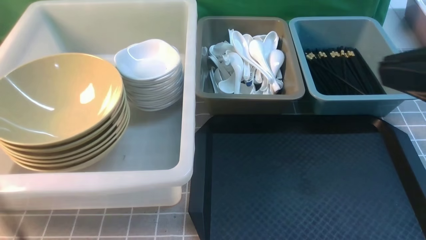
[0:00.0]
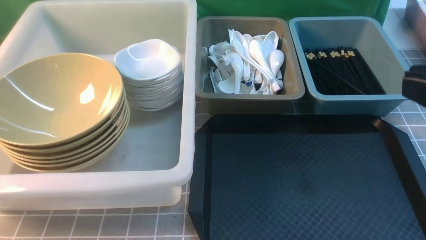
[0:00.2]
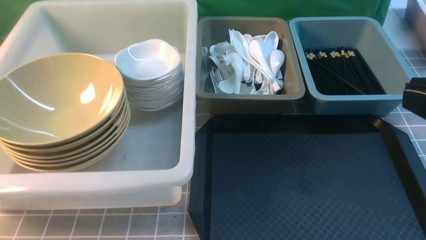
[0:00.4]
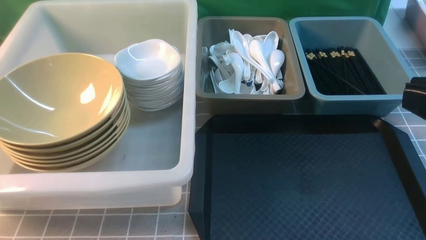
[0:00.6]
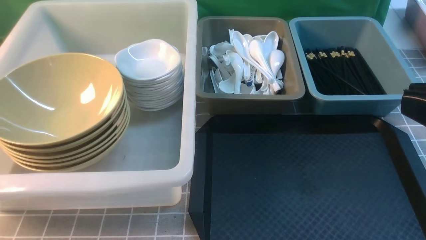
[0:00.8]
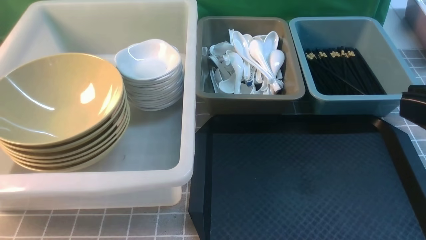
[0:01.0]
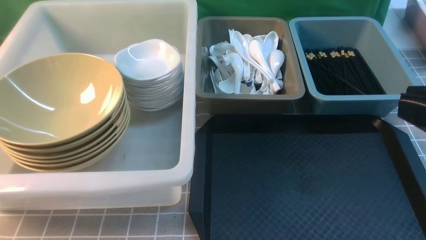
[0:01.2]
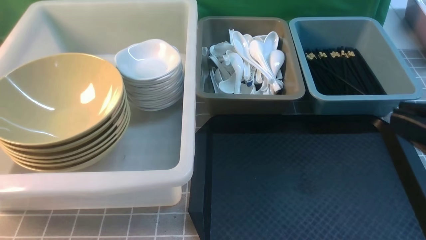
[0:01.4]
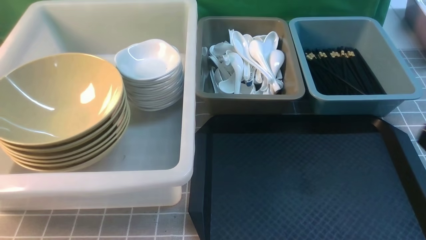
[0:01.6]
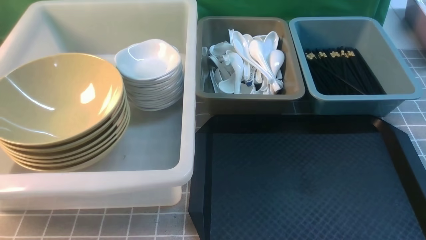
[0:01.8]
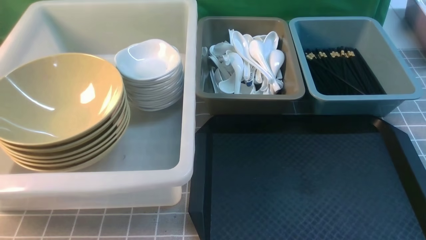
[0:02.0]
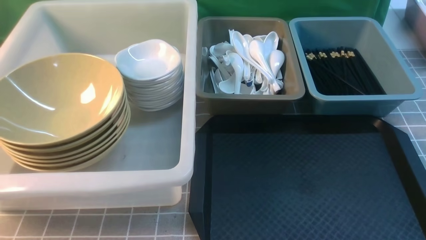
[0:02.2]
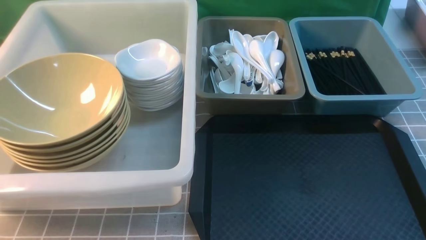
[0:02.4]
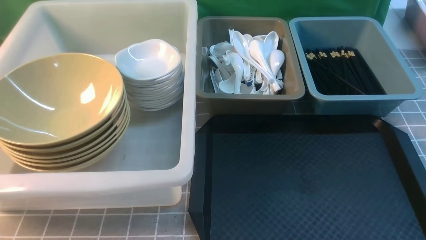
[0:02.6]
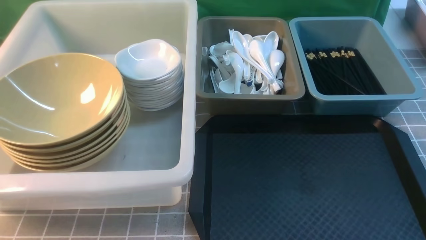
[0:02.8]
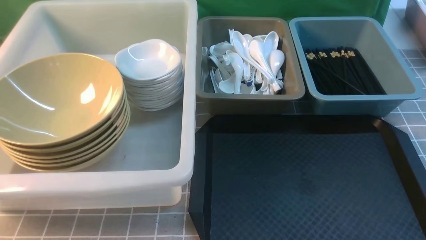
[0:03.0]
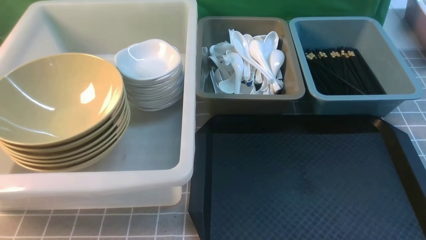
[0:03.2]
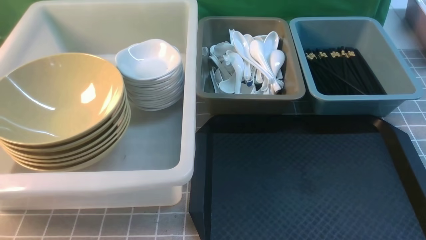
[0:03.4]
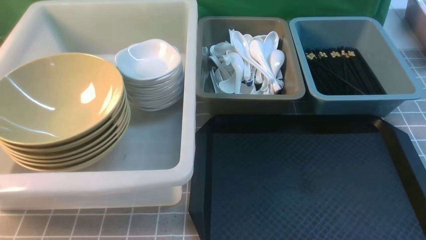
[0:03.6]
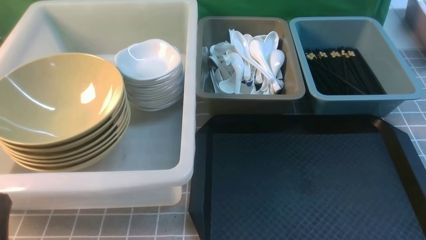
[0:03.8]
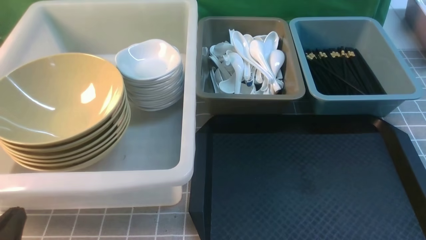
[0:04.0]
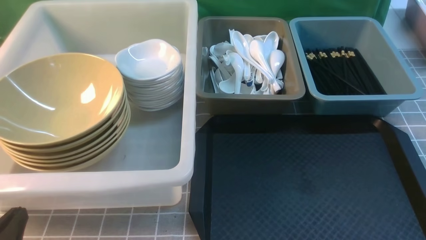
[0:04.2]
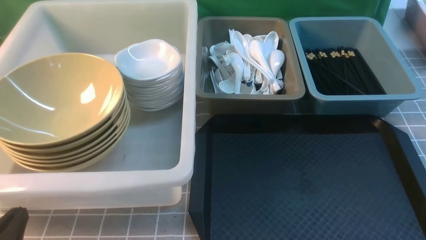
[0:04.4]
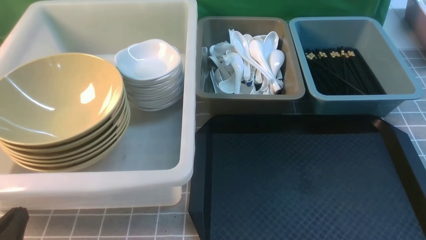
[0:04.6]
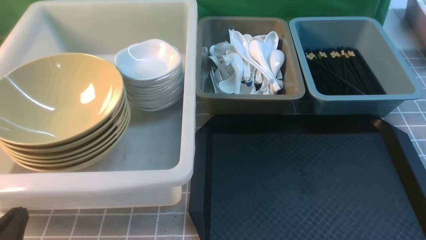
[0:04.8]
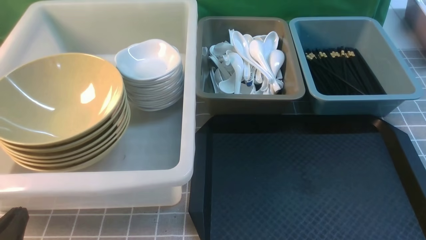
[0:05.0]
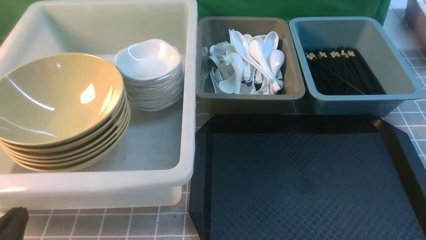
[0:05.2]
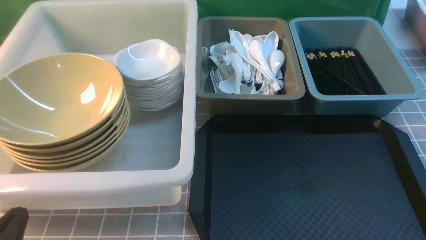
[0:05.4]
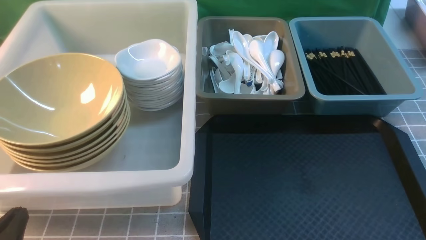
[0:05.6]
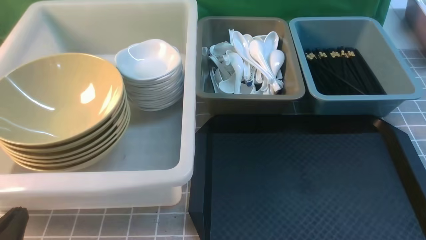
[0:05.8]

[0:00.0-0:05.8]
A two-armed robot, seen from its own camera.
Task of the whole recording: on grey table put chopsticks spoon bowls plates into blue grey white boxes.
0:00.0 to 0:01.4: The right gripper is displaced downward by about 10 cm.
0:01.4 to 0:02.8: The right gripper travels downward by approximately 15 cm.
0:02.8 to 0:04.4: The left gripper goes roughly 10 cm downward.
0:04.4 to 0:05.8: Neither gripper changes place.
